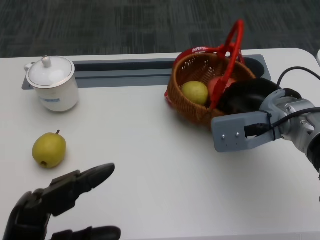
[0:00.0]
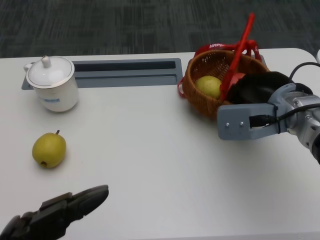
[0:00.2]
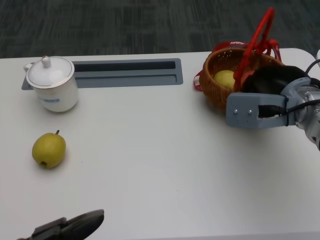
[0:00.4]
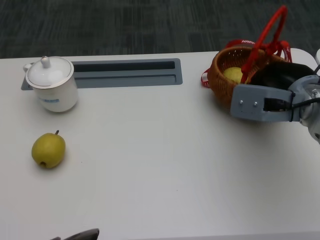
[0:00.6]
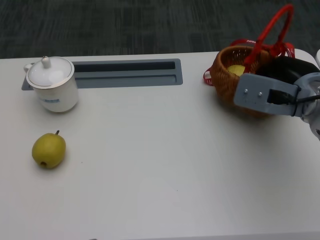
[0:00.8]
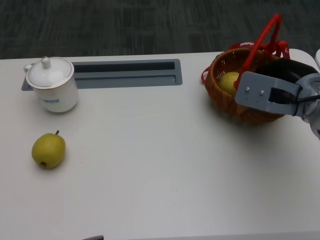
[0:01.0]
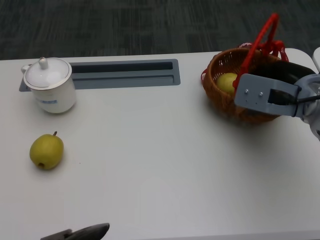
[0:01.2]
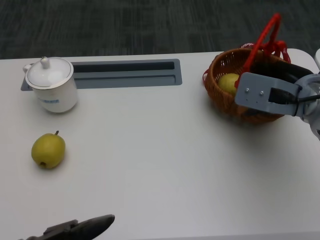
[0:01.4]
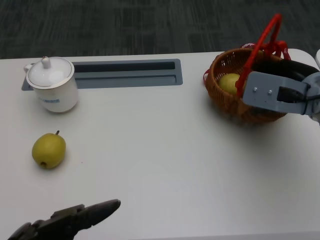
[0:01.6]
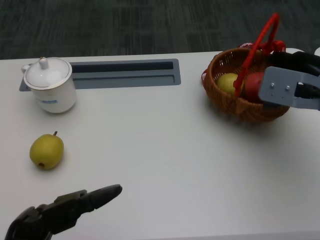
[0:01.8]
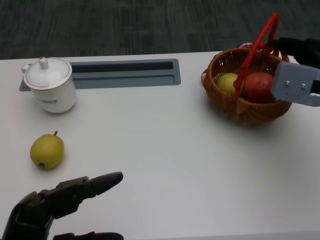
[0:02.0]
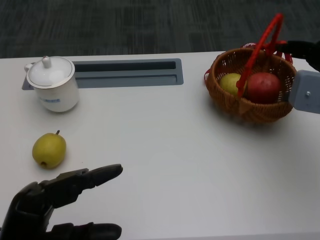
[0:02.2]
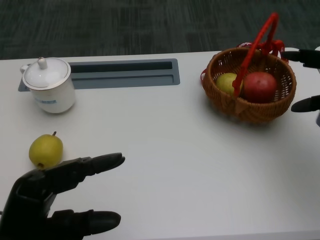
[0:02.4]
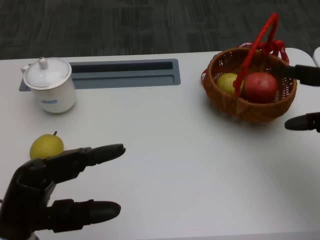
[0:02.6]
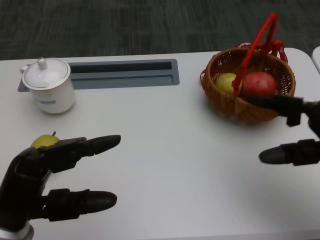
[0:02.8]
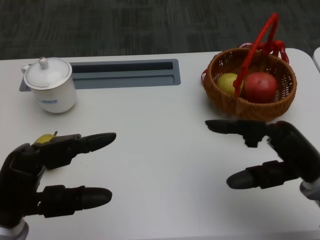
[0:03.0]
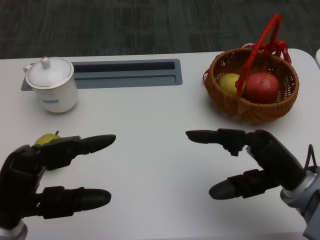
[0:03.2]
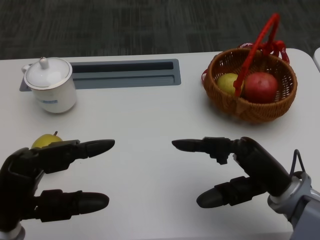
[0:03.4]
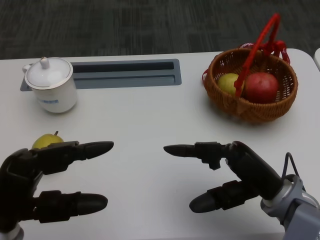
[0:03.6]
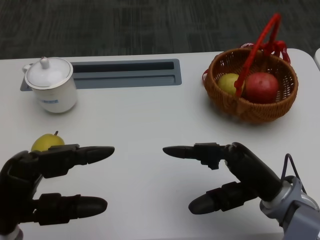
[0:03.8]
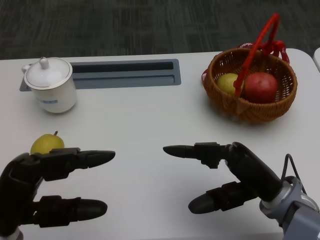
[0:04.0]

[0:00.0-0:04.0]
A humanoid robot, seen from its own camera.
0:00.0 to 0:01.4: The left hand is displaced backward by approximately 5 cm.
0:01.4 to 0:02.6: The left hand shifts roughly 10 cm forward; the right hand travels to the right and backward by approximately 10 cm.
0:02.6 to 0:04.0: The right hand is displaced to the left, downward and backward by roughly 15 cm.
